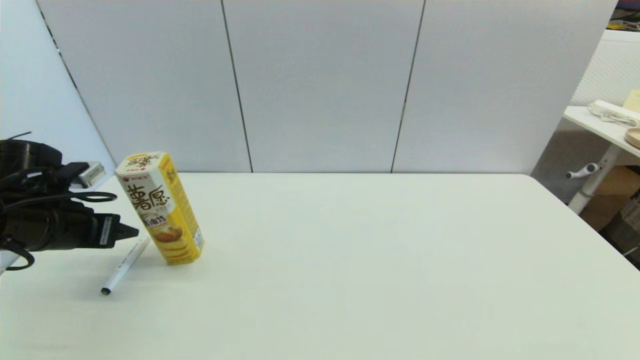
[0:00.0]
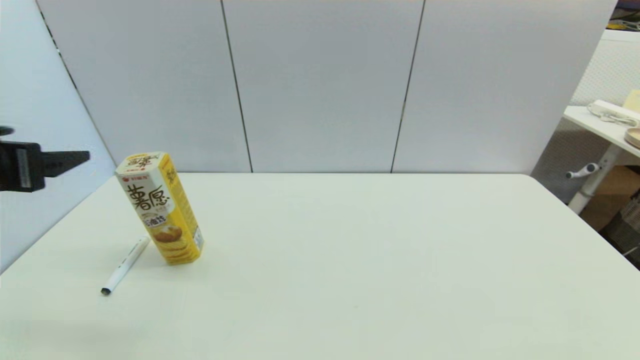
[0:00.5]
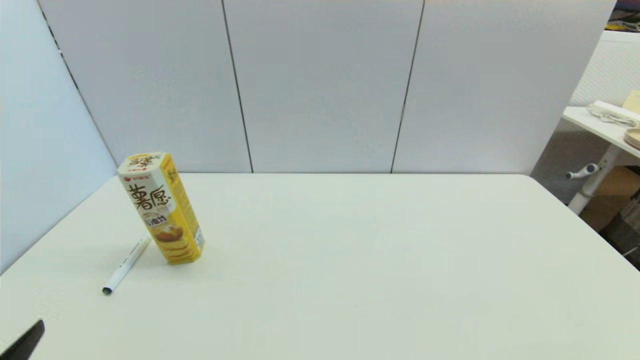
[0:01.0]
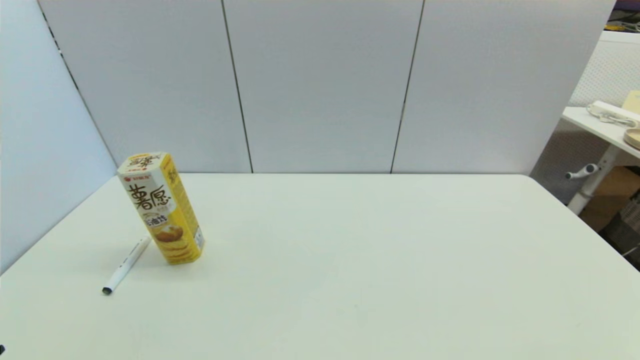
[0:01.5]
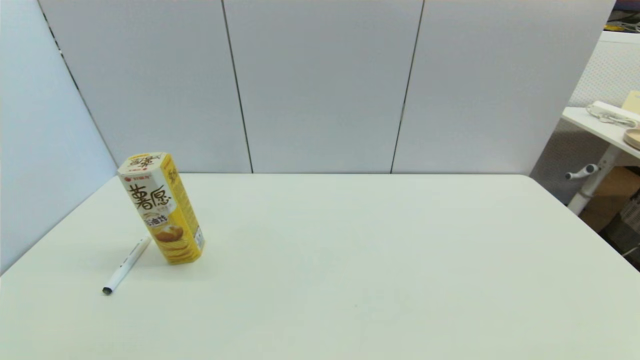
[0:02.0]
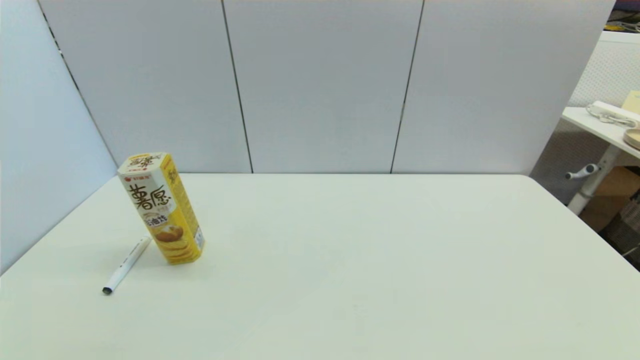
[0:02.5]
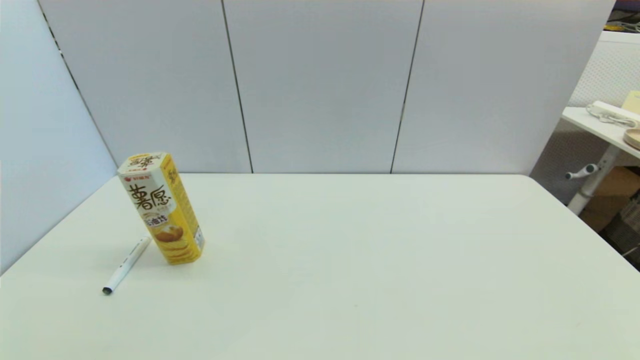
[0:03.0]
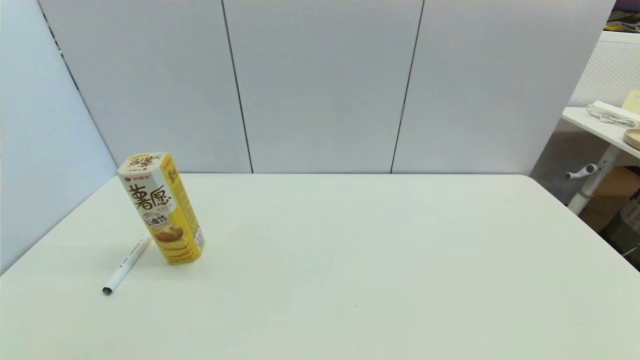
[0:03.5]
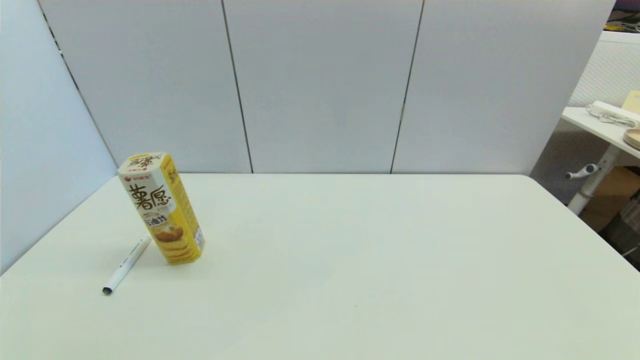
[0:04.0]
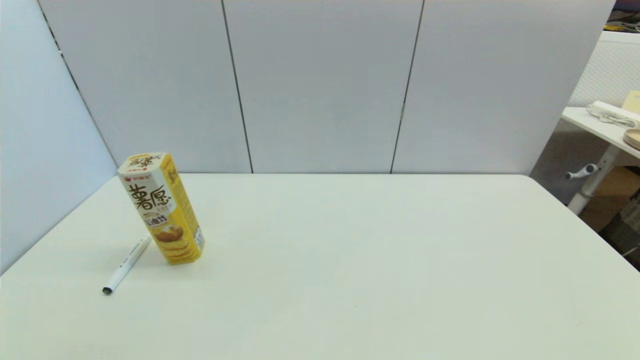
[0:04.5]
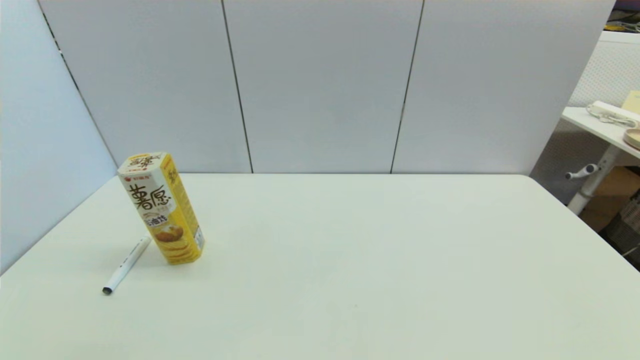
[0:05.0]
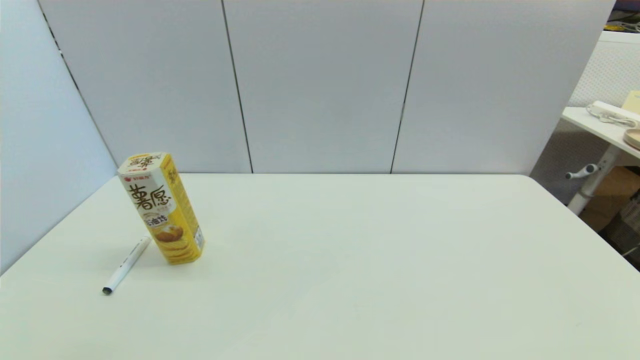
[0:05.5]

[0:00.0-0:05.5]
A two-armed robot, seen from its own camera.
Task of the whole recording: put the black marker in the designated position.
0:00.0 to 0:02.0: The left gripper shifts some 30 cm backward, and opens up.
0:02.0 to 0:05.5: Both grippers stay put.
